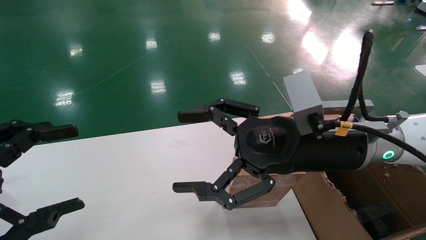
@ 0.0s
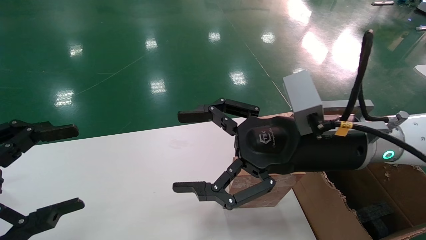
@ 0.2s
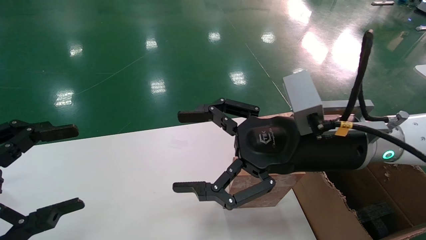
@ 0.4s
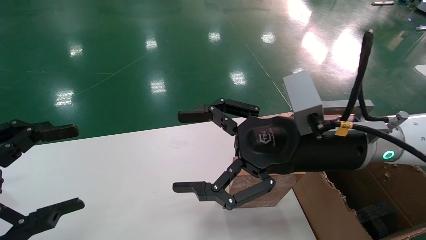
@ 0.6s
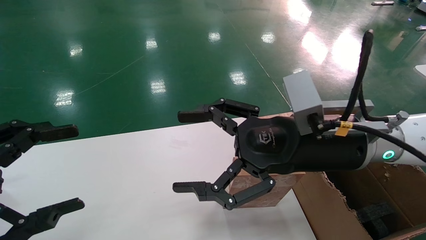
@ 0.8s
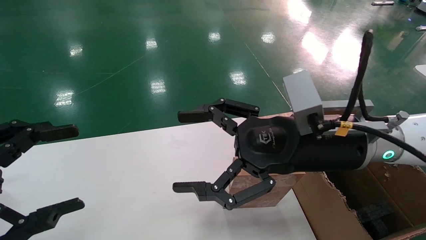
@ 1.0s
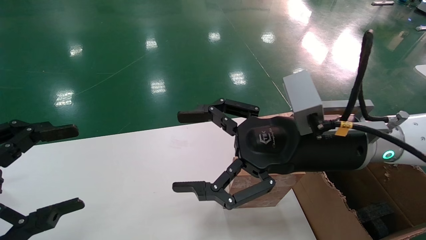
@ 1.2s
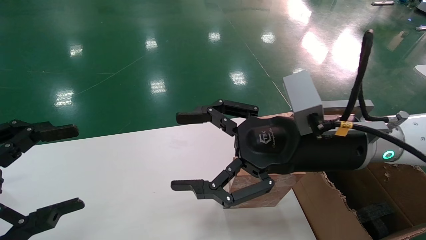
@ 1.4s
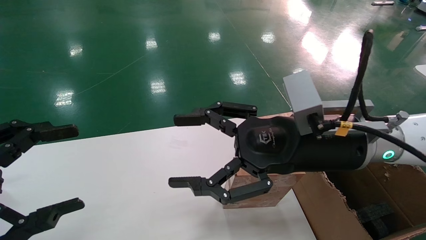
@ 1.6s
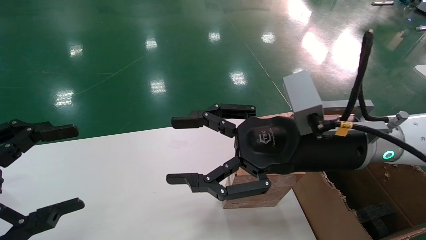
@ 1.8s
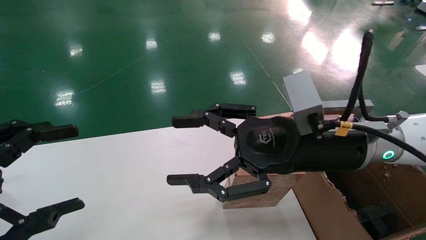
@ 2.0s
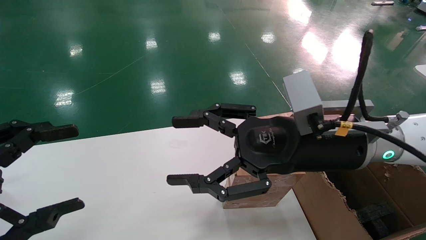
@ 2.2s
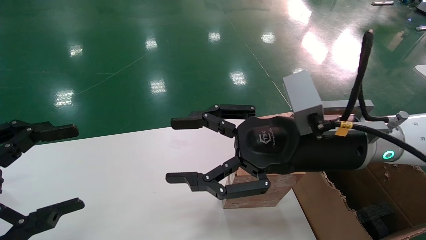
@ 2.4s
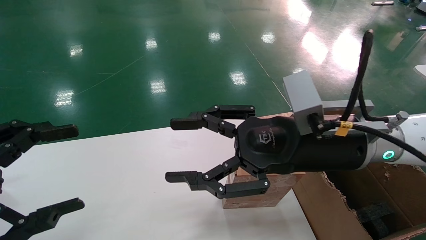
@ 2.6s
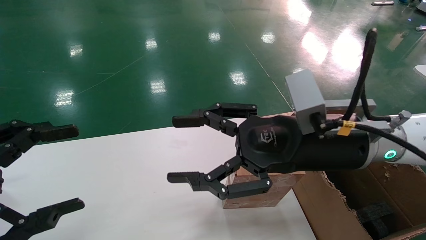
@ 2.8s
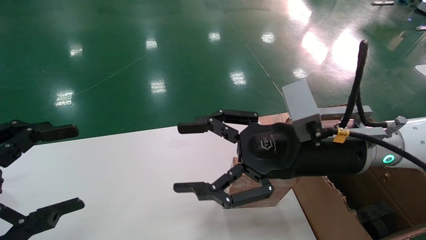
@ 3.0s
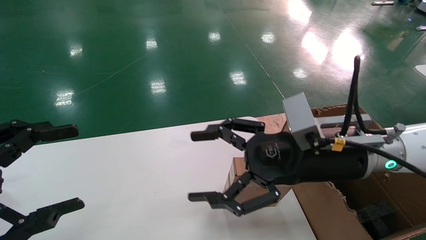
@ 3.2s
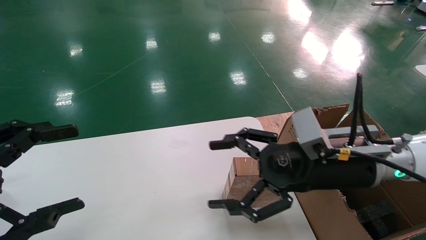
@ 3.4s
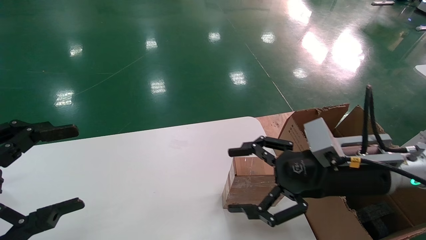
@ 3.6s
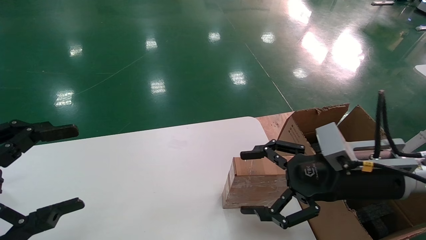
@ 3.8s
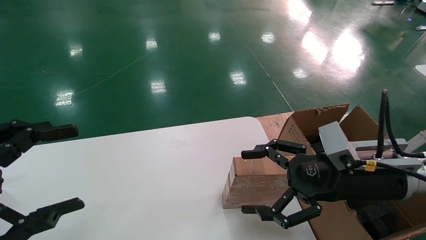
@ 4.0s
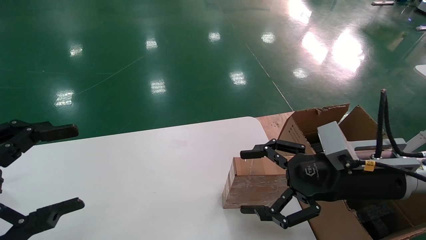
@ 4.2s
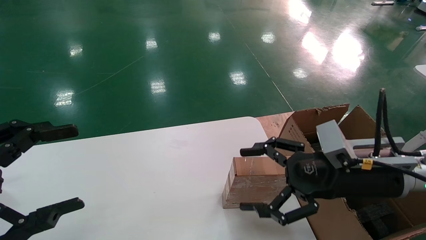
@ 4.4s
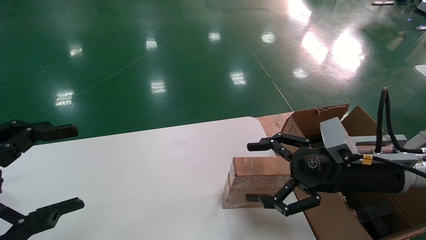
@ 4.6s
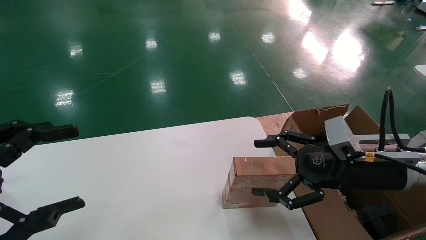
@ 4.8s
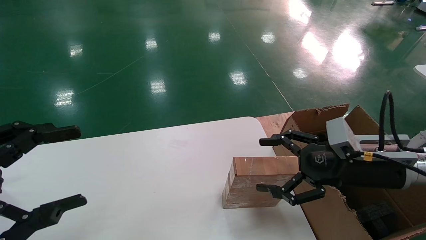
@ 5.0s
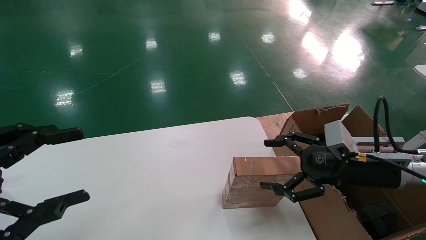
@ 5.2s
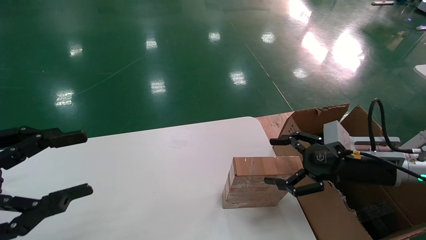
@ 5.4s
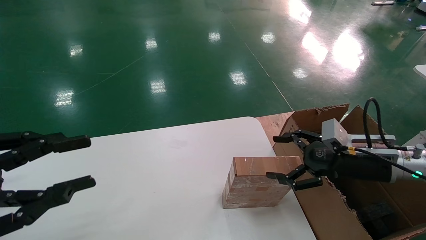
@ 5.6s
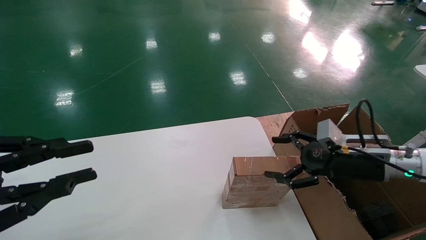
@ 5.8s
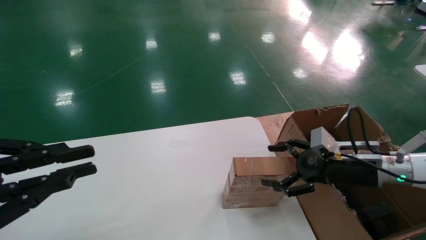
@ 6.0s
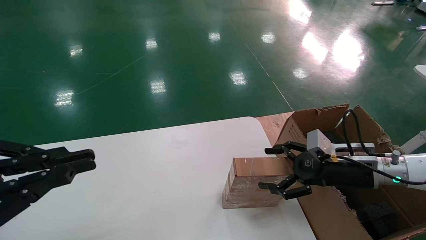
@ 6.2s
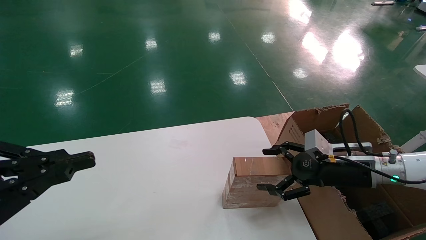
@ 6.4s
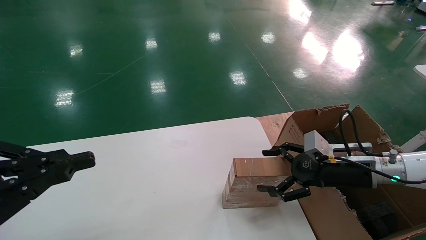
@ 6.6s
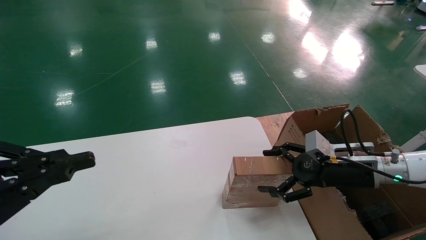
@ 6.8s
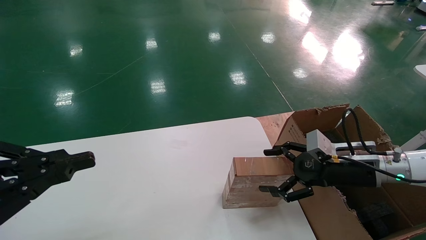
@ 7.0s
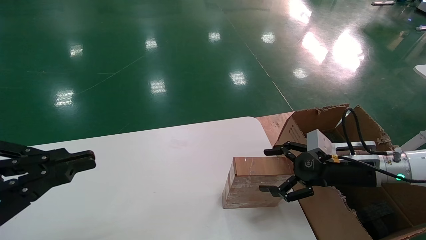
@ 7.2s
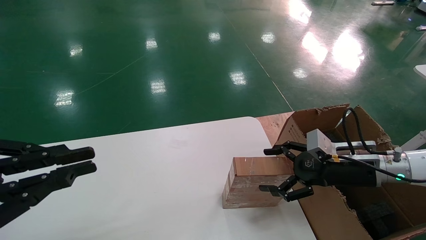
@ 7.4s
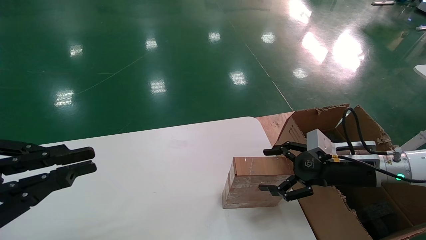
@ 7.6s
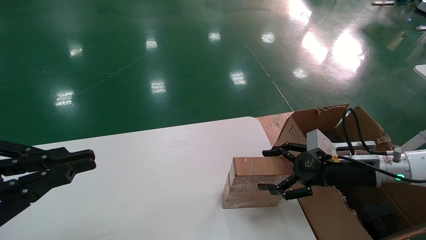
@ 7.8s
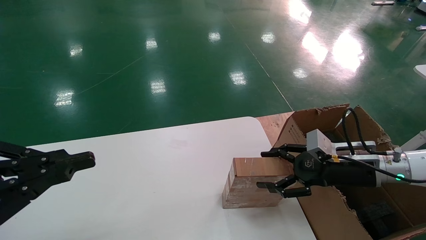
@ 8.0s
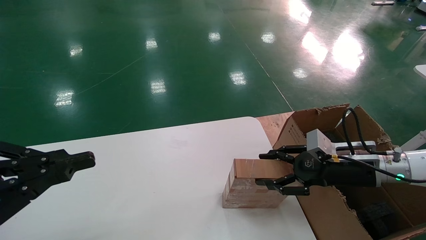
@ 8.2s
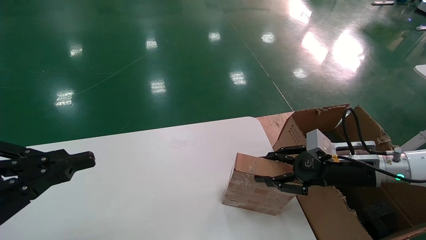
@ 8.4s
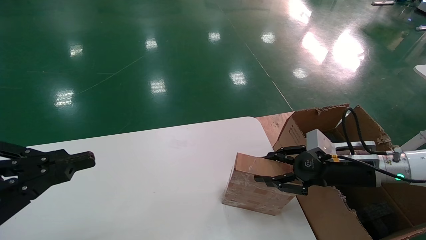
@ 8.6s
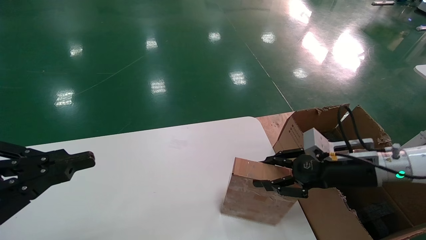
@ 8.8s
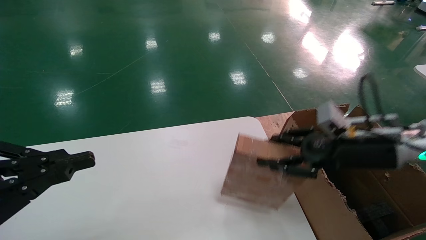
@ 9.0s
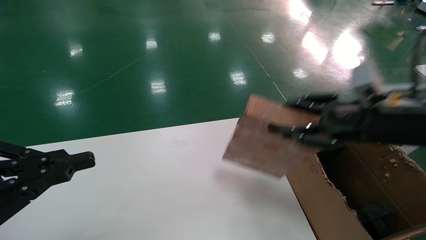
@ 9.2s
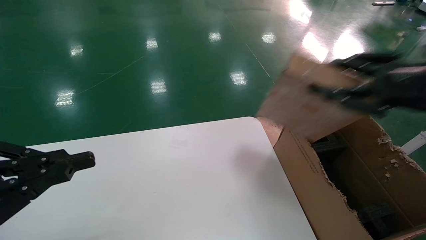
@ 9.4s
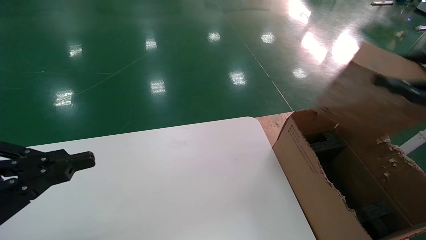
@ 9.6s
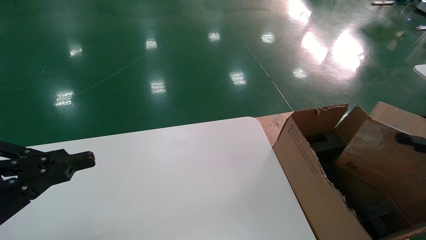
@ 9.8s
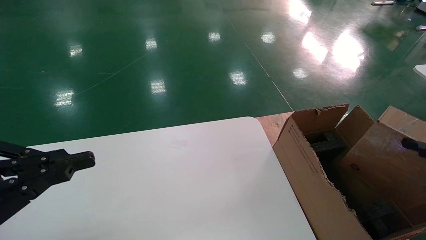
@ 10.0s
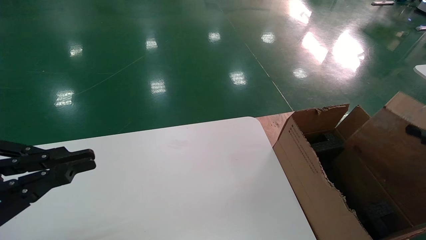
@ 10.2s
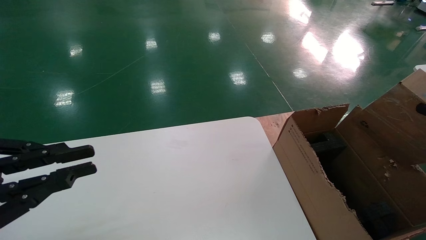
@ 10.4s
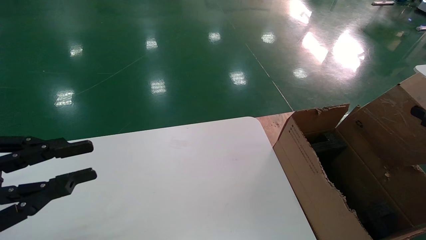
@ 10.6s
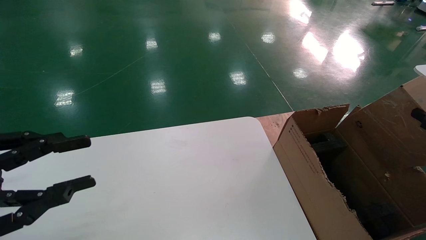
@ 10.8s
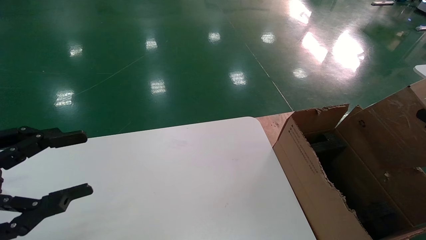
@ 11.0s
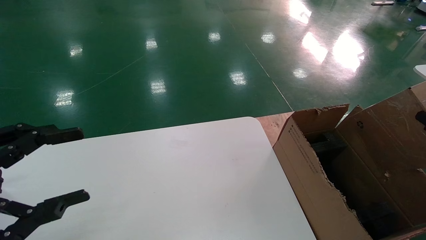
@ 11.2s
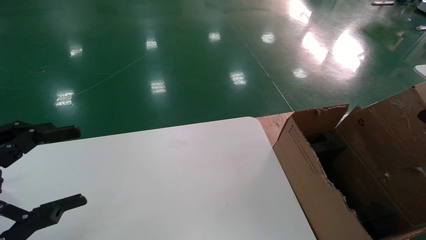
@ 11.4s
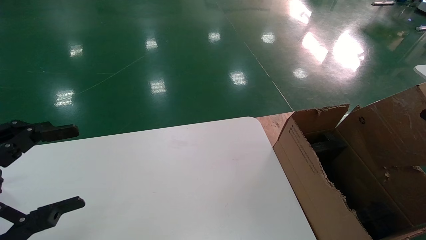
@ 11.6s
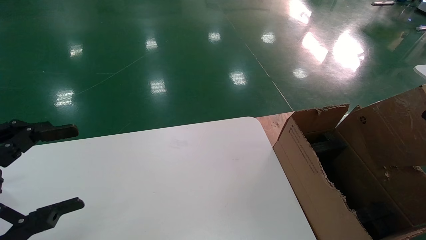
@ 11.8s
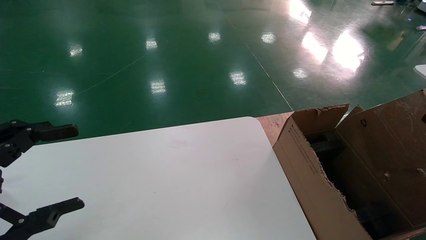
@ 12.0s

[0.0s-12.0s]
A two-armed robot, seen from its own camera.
Task of the whole recording: put the box on the table into the big box.
Step, 3.4s to 8.4s: Pick up the mouse and the power cord paper box.
0.0s to 1.6s: The two grippers keep their place.
1.6s to 3.0s: There are only small adjustments of the grippers.
3.0s to 4.4s: The right gripper is displaced to the right and downward by some 10 cm, and opens its fingers.
4.4s to 6.0s: The right gripper shifts some 10 cm to the right, forward and downward, while the left gripper closes up.
6.0s to 7.6s: Both grippers stay about where they are.
7.6s to 9.0s: The right gripper is displaced upward by roughly 10 cm, and closes its fingers.
9.0s to 10.4s: The right gripper shifts roughly 25 cm backward and to the right.
10.4s to 12.0s: The left gripper opens its fingers.

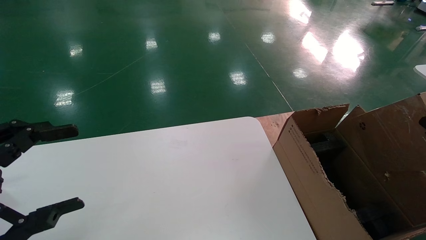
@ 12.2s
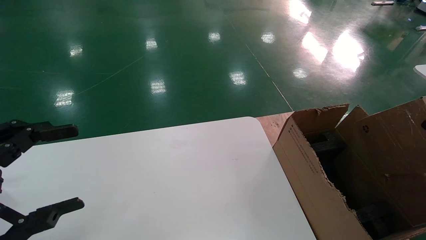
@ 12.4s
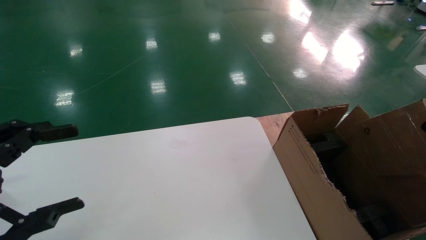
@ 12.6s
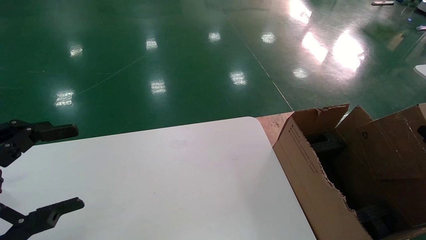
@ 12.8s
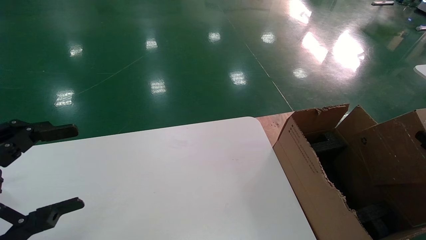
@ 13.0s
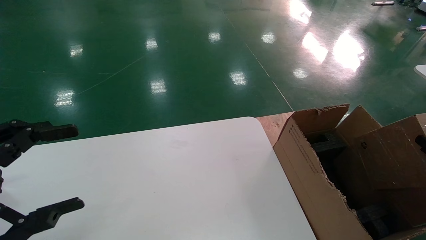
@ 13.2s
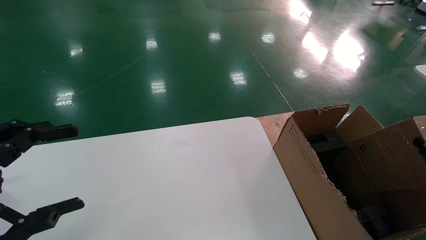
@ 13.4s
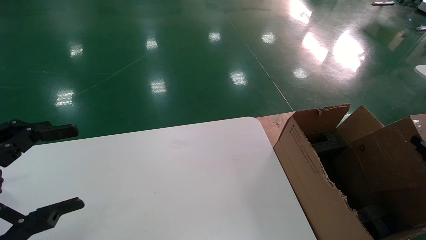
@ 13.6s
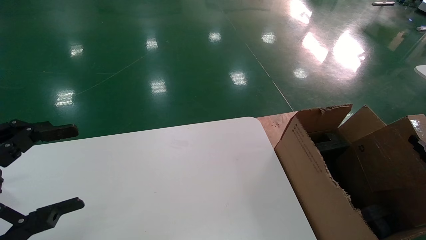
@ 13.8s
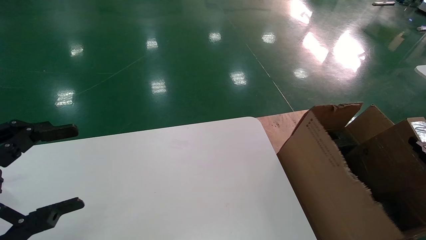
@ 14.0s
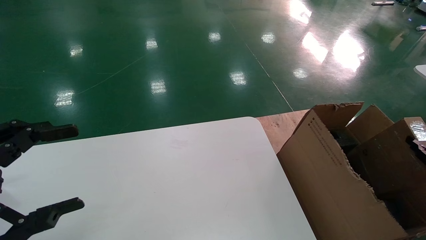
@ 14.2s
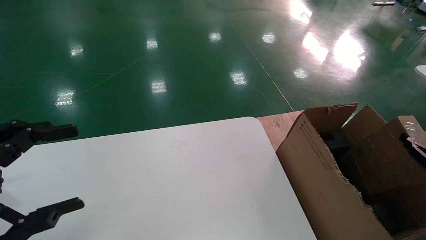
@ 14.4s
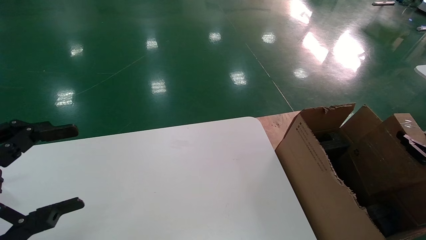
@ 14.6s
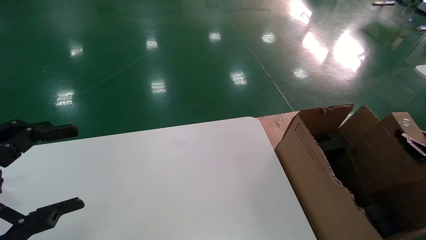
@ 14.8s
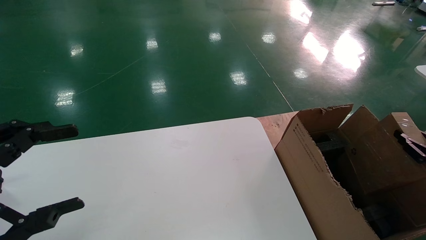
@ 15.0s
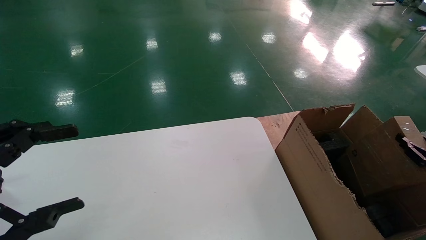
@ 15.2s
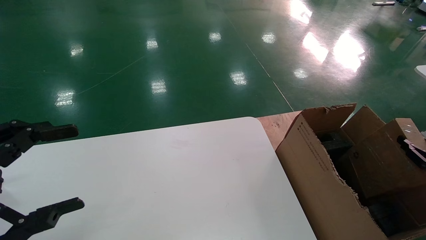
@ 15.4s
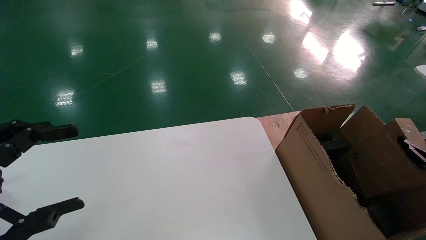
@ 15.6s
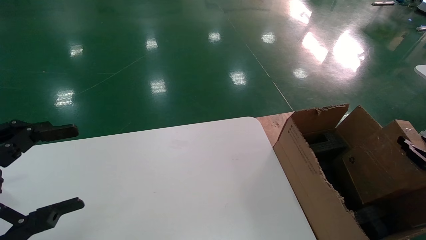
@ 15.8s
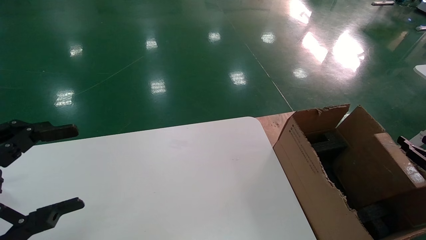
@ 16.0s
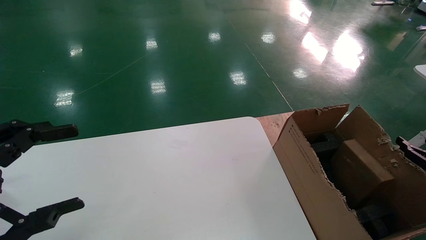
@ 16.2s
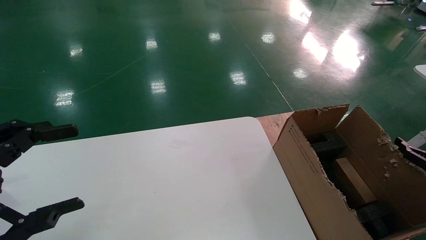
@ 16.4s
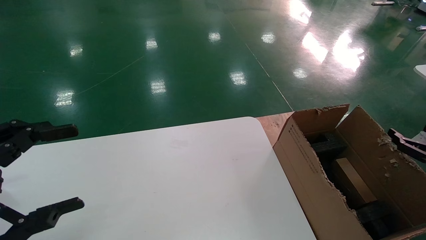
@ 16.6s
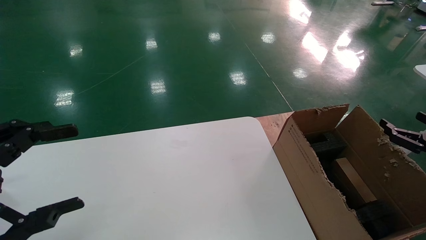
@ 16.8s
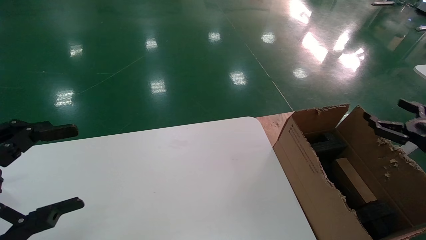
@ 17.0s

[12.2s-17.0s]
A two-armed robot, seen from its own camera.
Task of the whole recording: put the box on the table into the big box.
Step, 12.2s to 16.0s: Place the mouse and the power cord paper box into the container.
12.2s to 13.8s: The right gripper changes place by approximately 5 cm.
13.8s to 15.4s: The grippers stay close to where they were, moving slightly.
15.4s to 17.0s: The right gripper goes some 10 cm upward and to the left, and opens up.
